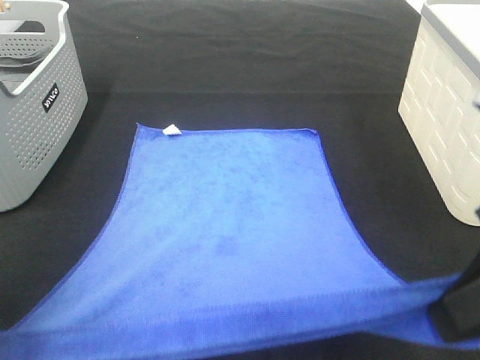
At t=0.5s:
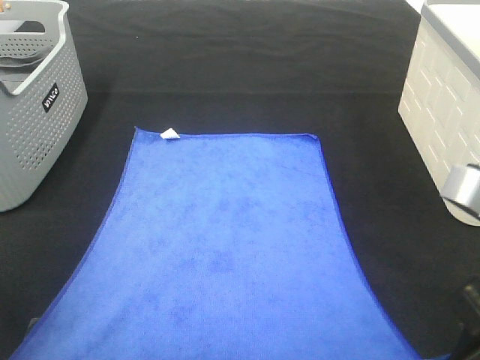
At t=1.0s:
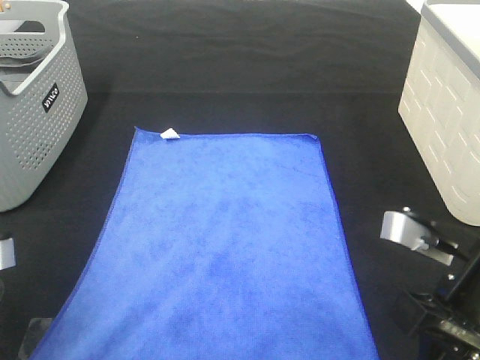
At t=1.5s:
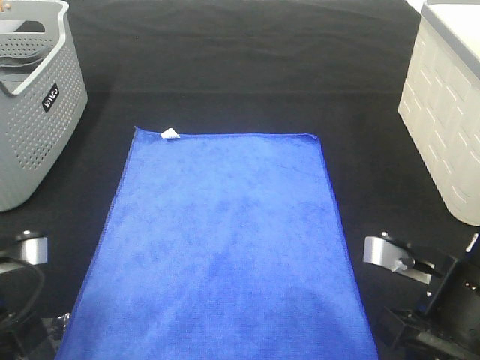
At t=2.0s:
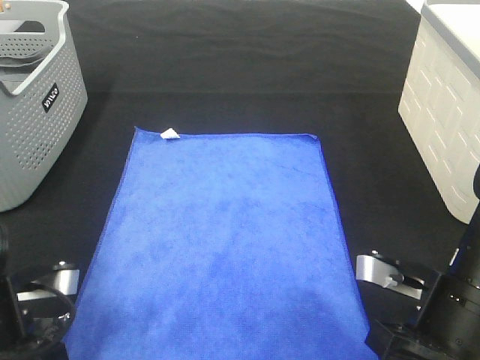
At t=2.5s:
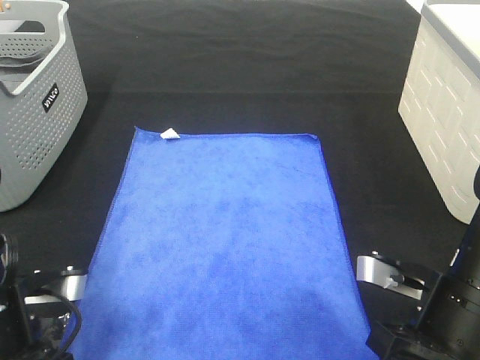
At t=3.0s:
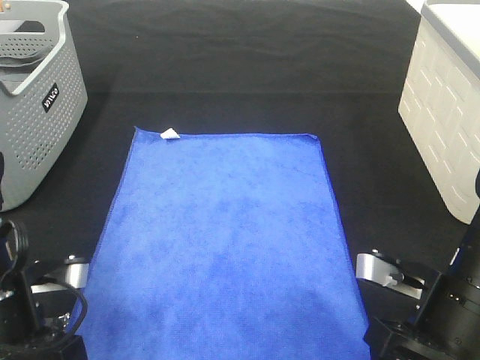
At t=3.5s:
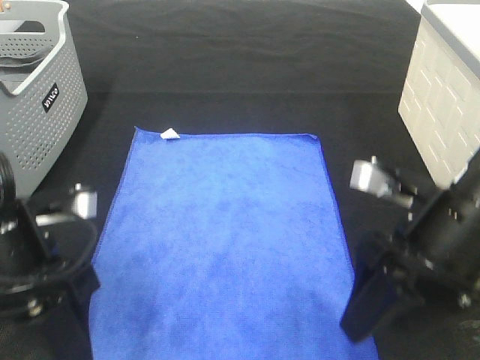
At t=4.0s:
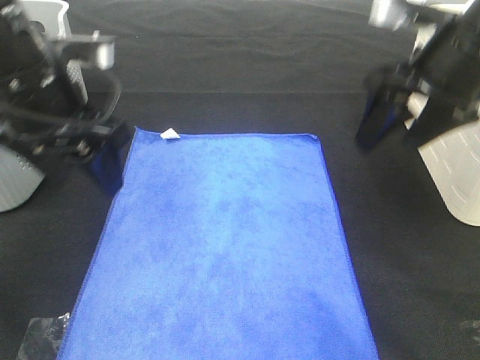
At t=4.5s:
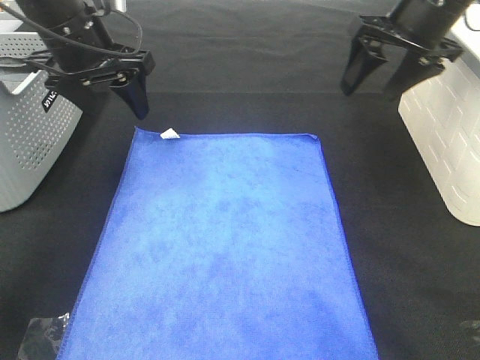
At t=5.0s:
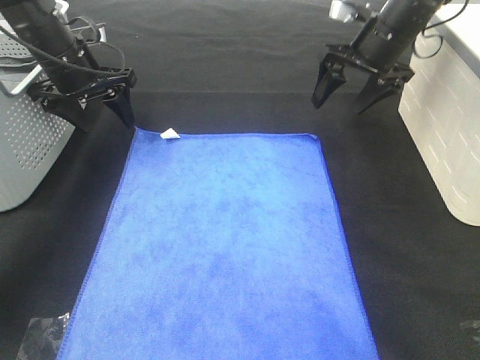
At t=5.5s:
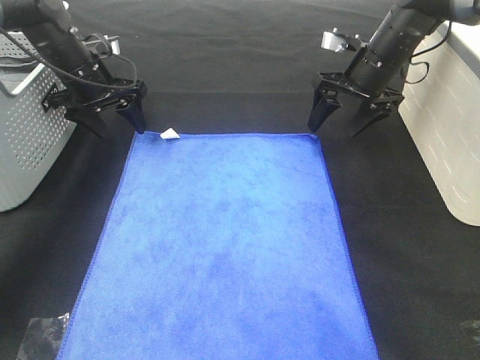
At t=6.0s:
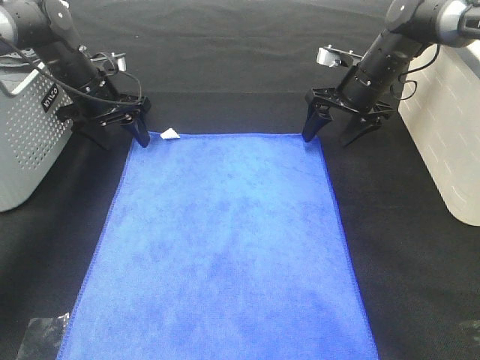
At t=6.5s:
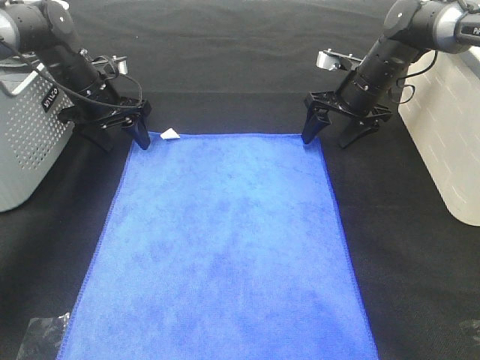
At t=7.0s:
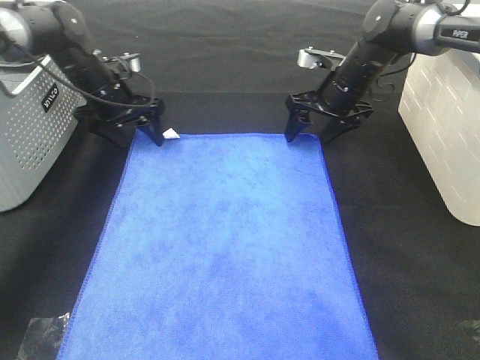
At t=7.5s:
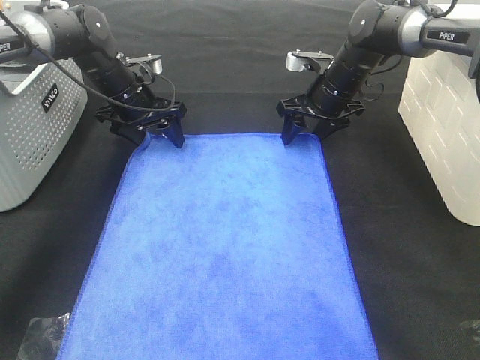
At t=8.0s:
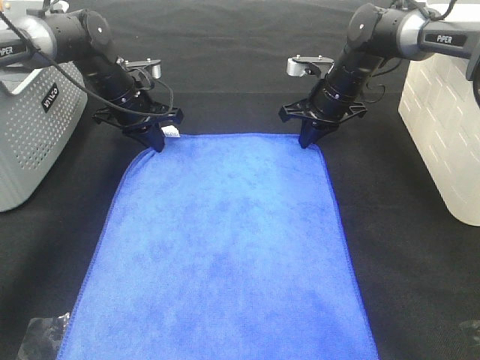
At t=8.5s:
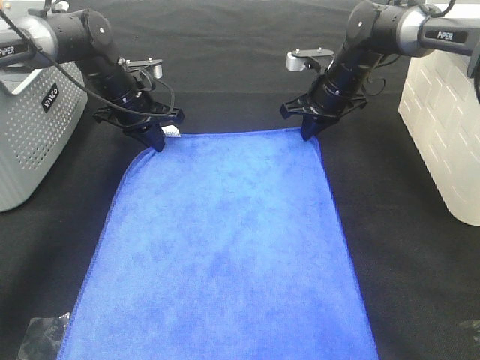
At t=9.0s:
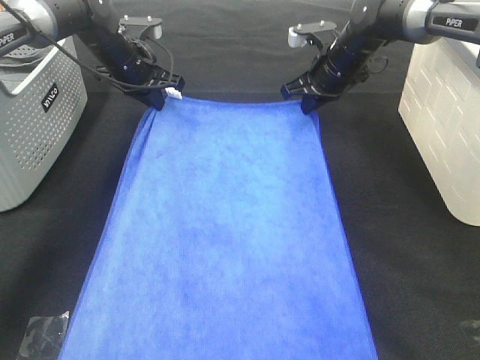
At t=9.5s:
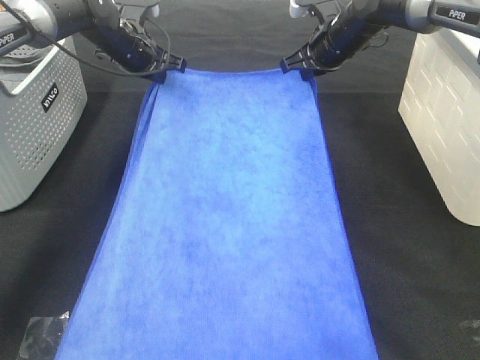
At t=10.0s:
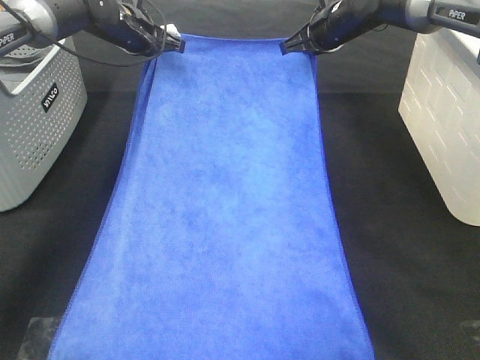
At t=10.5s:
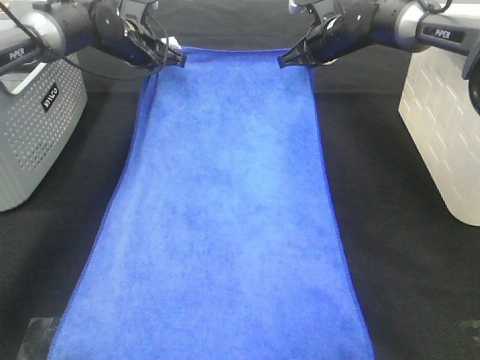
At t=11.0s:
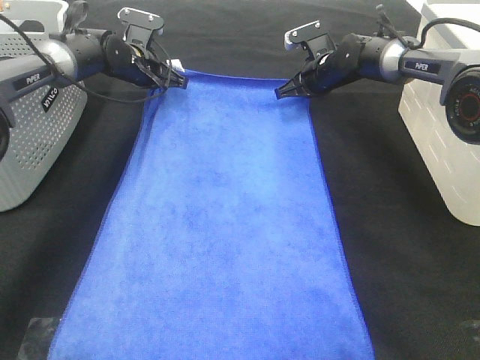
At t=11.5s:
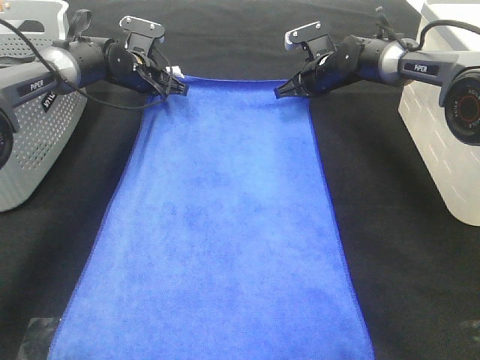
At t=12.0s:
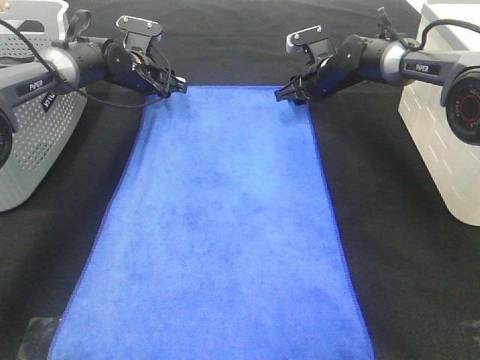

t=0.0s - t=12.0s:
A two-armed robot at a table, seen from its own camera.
Task of the whole recording: Remove the towel and place it.
Step, t=0.0s - t=5.5s: Left hand:adjust the blue towel.
Step, t=0.0s - t=5.5s: Right hand:adjust the blue towel.
t=0.0s - t=2.0s: The grippers both shift downward by roughly 15 cm.
t=2.0s - t=4.0s: Both grippers move forward and upward, approximately 20 cm. The right gripper opens. Meanwhile the left gripper opens up.
t=4.0s - t=6.0s: The grippers both shift forward and downward by roughly 25 cm.
t=6.0s - t=8.0s: The left gripper shifts roughly 5 cm to the right, and closes, while the right gripper closes its fingers.
t=8.0s - t=10.0s: The grippers both shift upward and forward by approximately 10 cm.
t=10.0s - t=12.0s: The two grippers go some 10 cm downward. The left gripper opens its fingers. Meanwhile the right gripper opens up.

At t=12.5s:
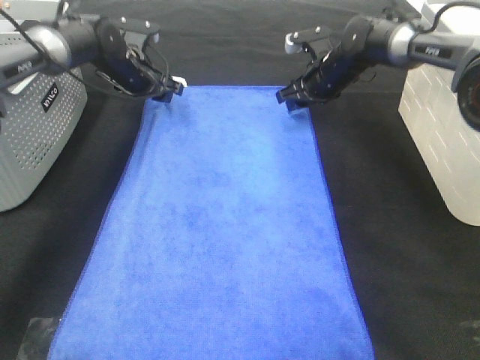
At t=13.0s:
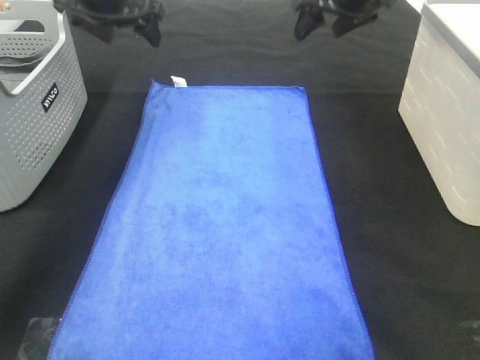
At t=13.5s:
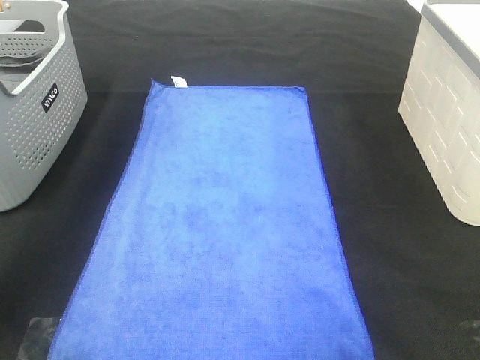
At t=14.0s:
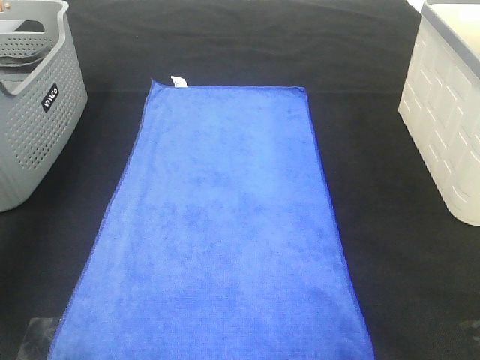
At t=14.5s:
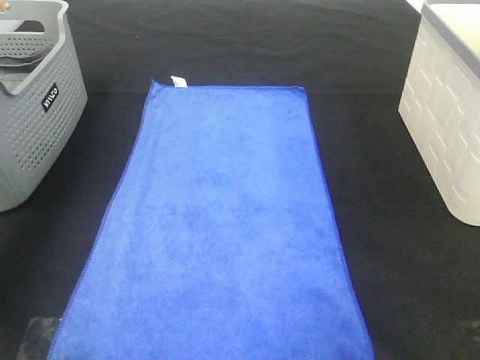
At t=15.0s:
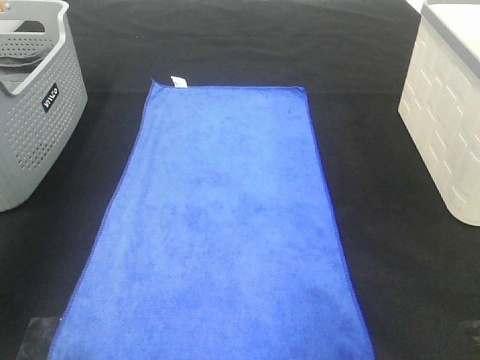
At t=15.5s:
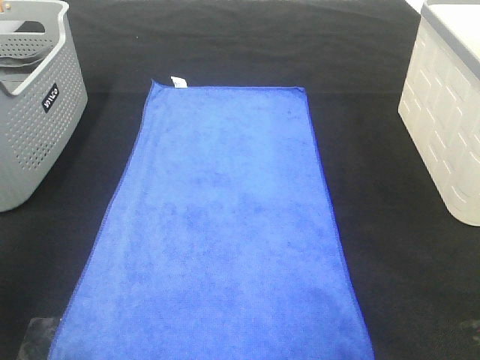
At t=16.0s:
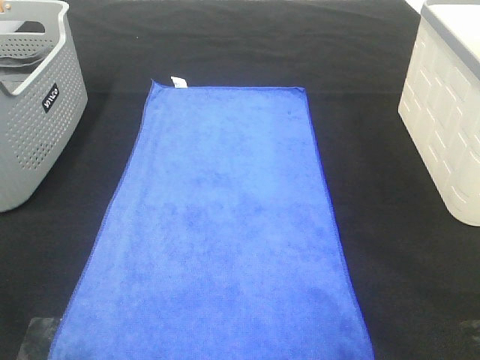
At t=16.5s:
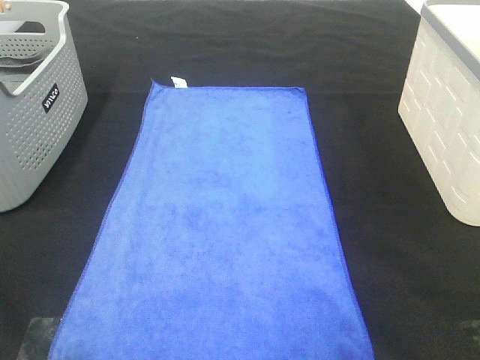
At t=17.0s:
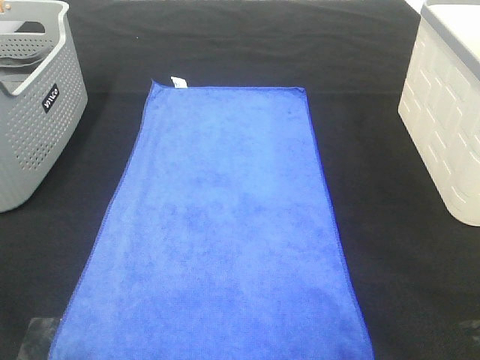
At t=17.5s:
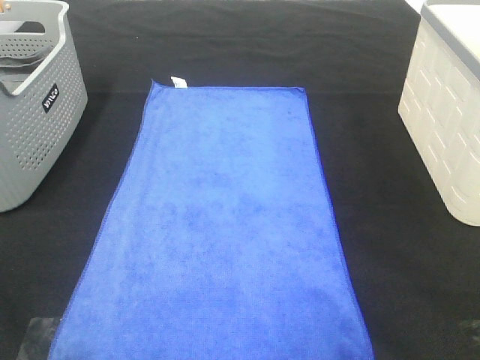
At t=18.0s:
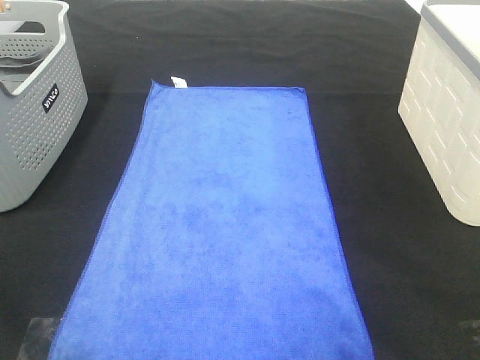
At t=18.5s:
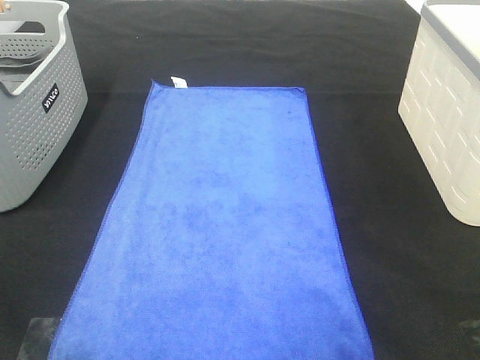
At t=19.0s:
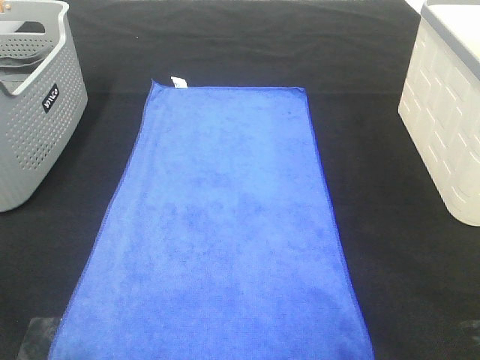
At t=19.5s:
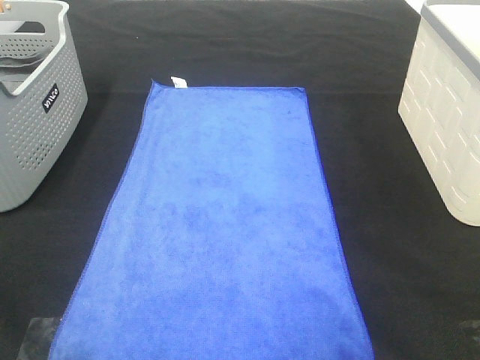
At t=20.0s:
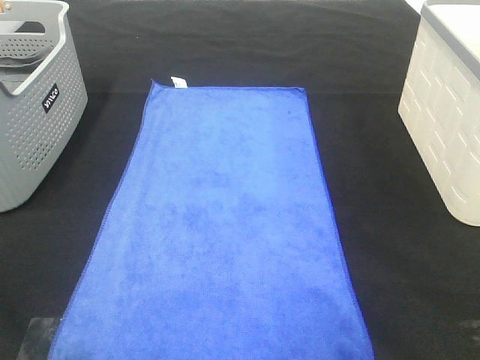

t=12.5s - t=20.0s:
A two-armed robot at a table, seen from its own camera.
Task of the whole recording: Remove the towel and place it.
t=12.5s - t=14.5s: The left gripper goes some 35 cm upward, to the left and backward, while the right gripper is displaced upward, backward and to the right by about 40 cm.
t=14.5s - t=16.5s: Both grippers travel together backward, about 40 cm.
t=18.0s - t=20.0s: Both grippers stay put.

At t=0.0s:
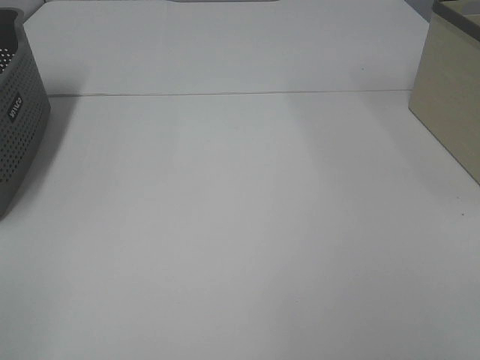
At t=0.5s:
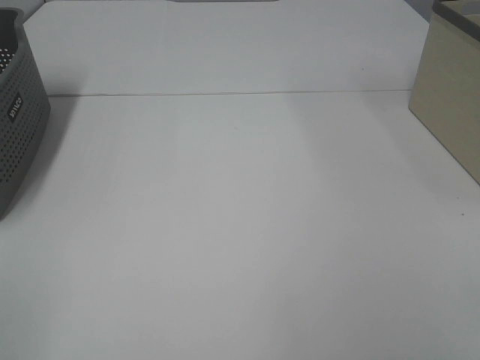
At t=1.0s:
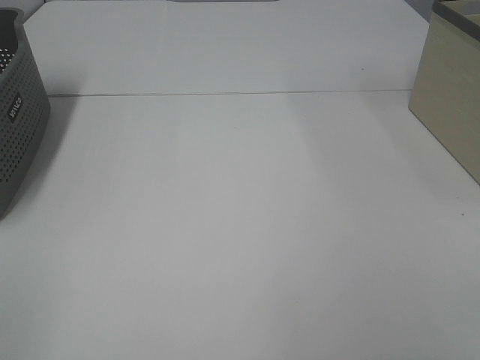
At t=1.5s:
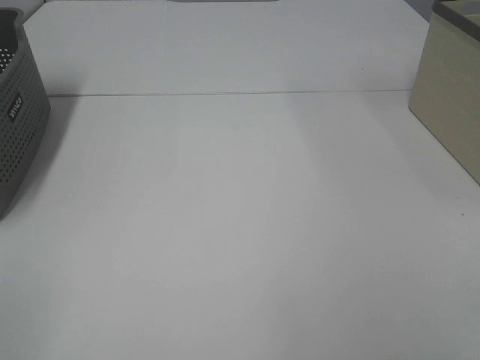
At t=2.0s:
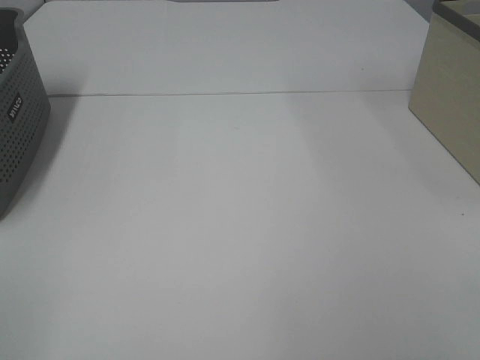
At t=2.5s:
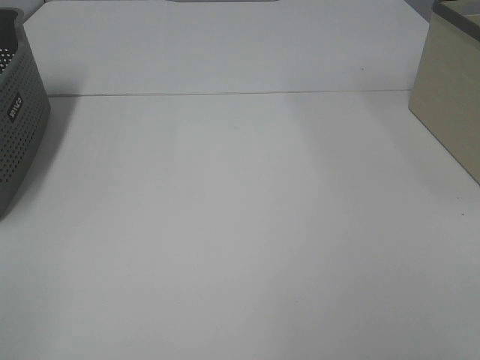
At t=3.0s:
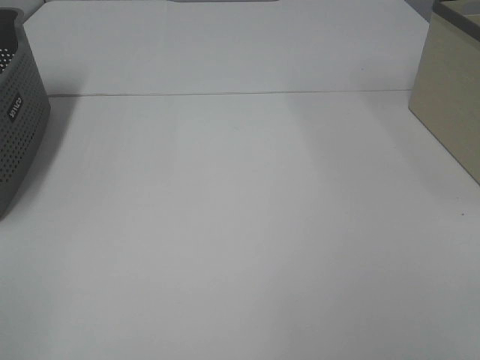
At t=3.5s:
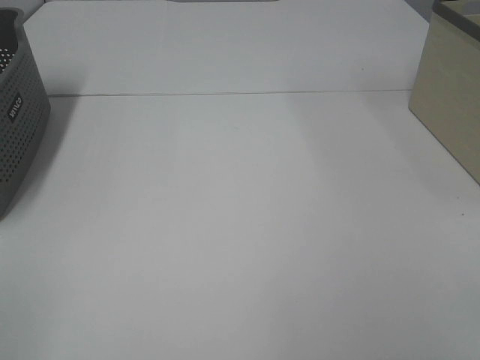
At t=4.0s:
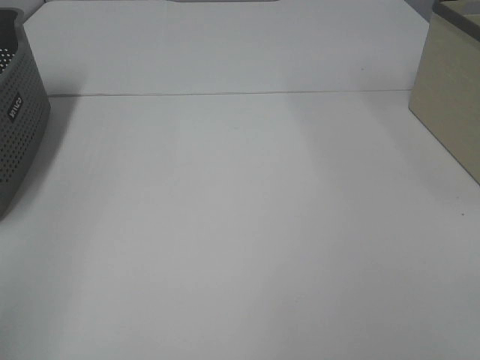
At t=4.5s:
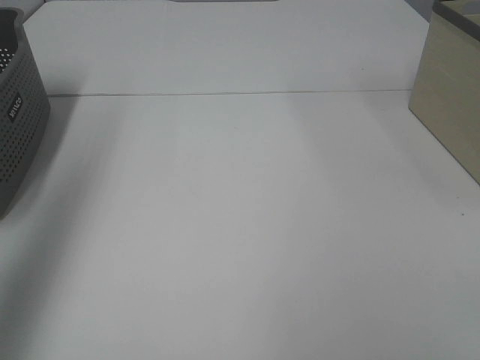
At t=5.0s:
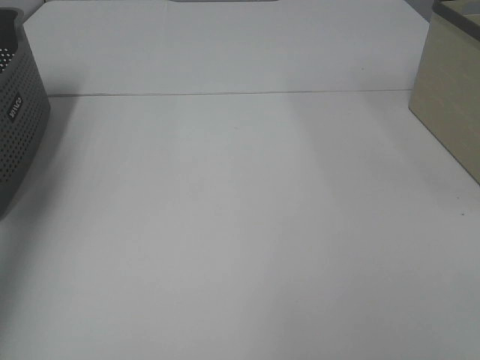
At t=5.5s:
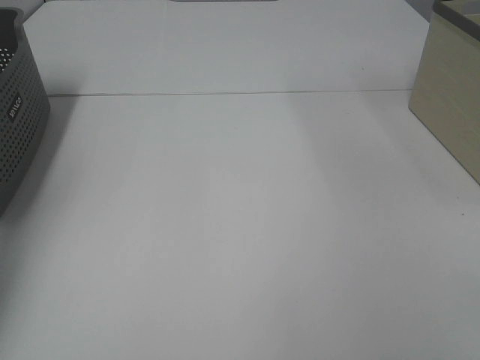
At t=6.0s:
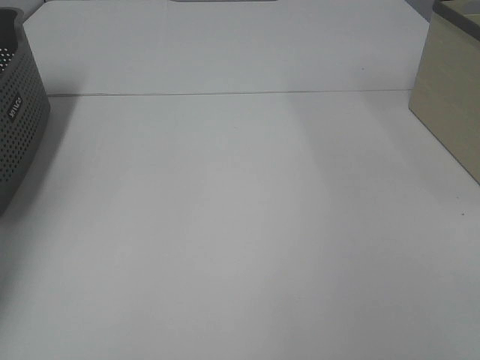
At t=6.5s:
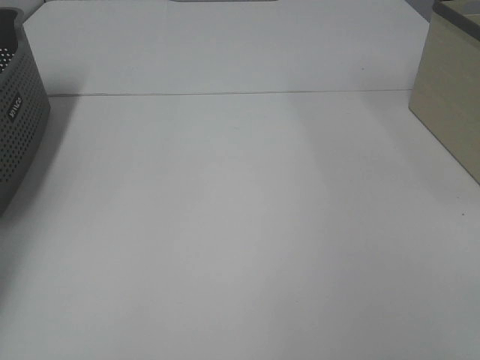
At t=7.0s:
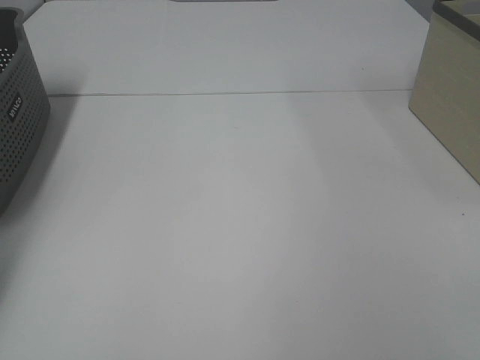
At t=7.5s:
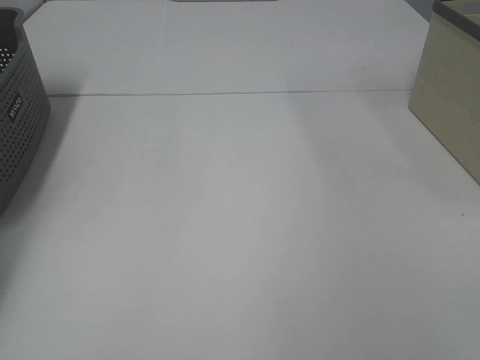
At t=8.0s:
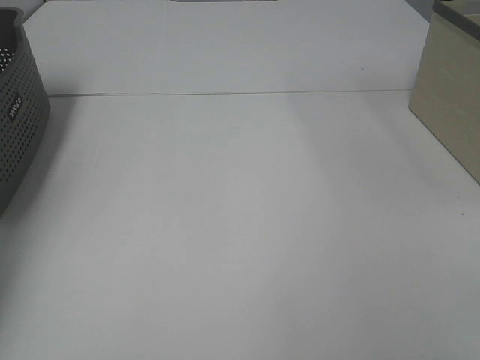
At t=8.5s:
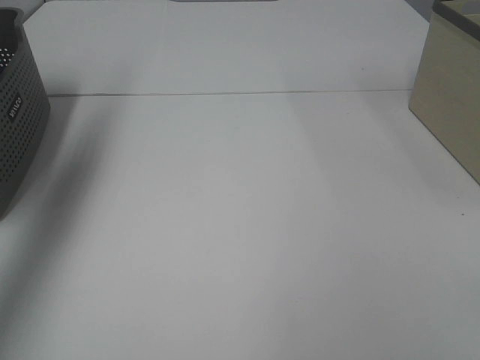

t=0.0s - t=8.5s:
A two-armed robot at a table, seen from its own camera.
Task of the whole recording: Remove the towel and place it.
t=0.0s - t=2.0s: Both grippers stay about where they are.
t=4.0s - t=6.5s: The left gripper travels forward and downward by approximately 50 cm, and closes up.
t=6.5s - t=8.5s: The left gripper is displaced upward by about 25 cm, and closes.
